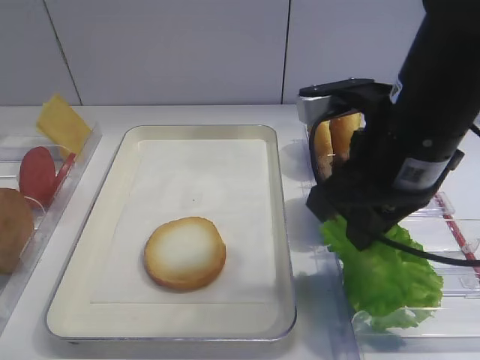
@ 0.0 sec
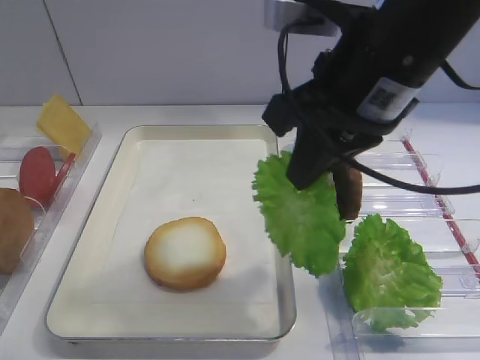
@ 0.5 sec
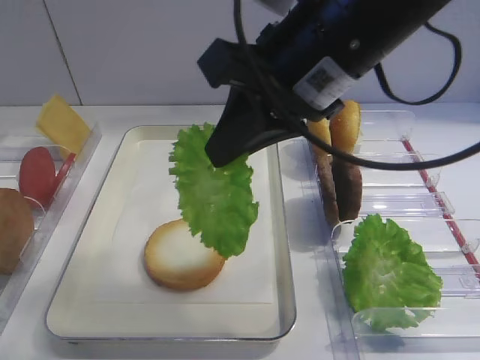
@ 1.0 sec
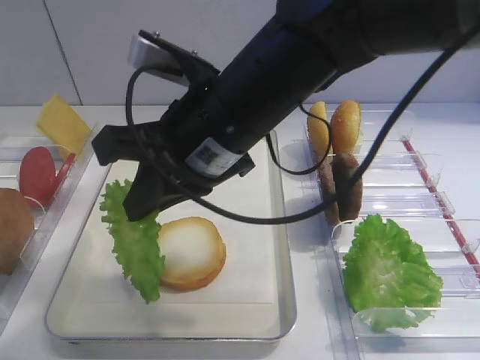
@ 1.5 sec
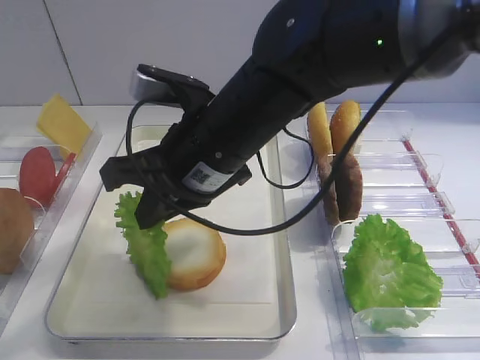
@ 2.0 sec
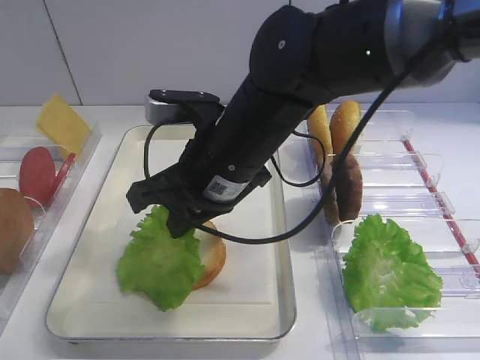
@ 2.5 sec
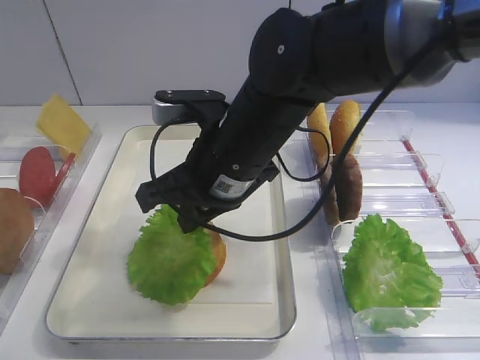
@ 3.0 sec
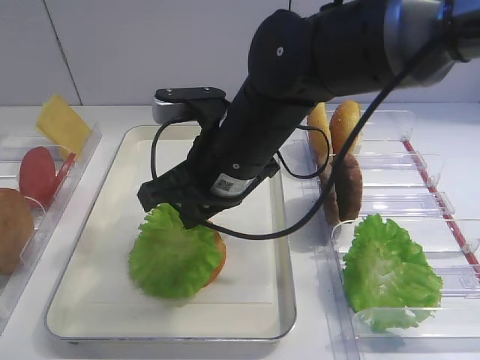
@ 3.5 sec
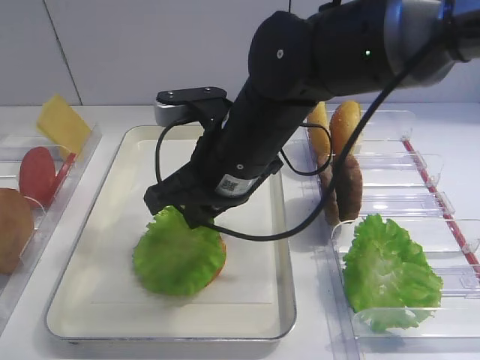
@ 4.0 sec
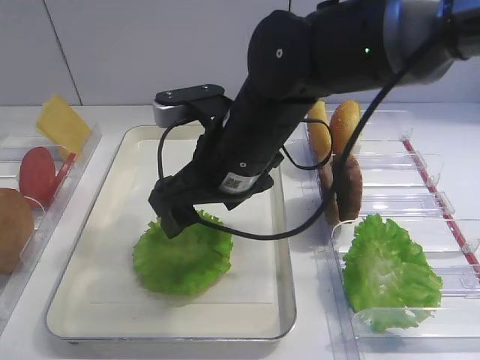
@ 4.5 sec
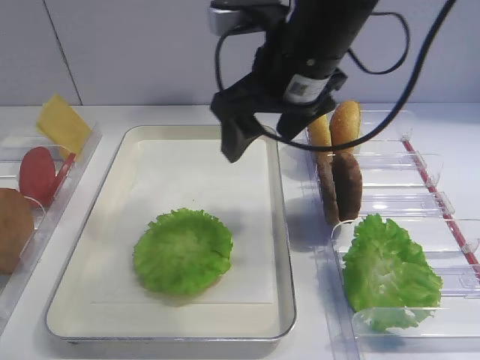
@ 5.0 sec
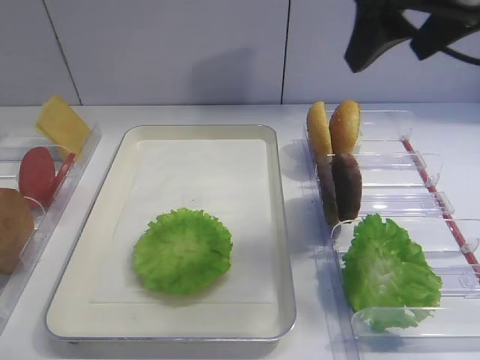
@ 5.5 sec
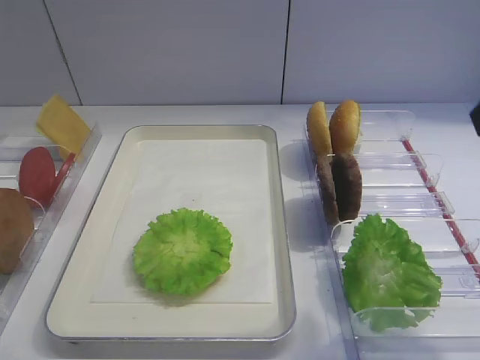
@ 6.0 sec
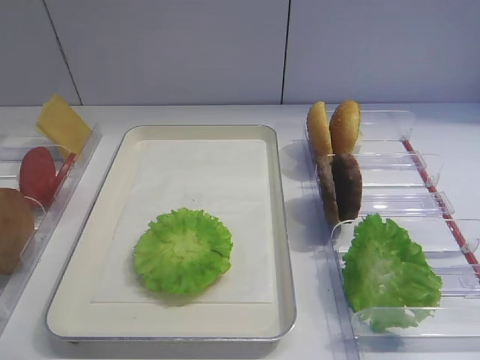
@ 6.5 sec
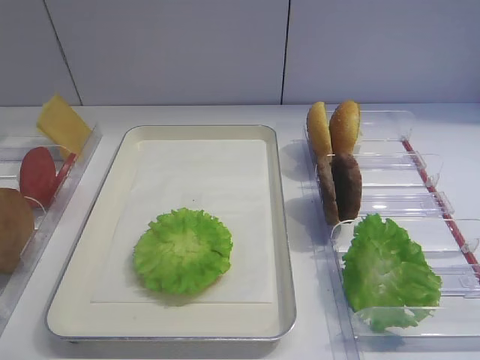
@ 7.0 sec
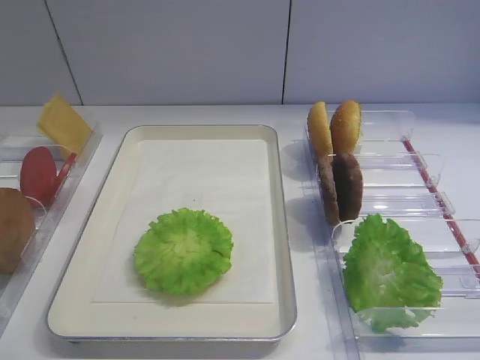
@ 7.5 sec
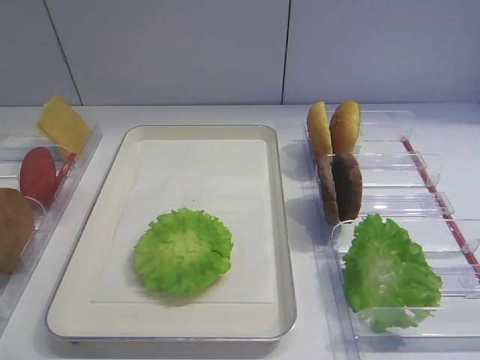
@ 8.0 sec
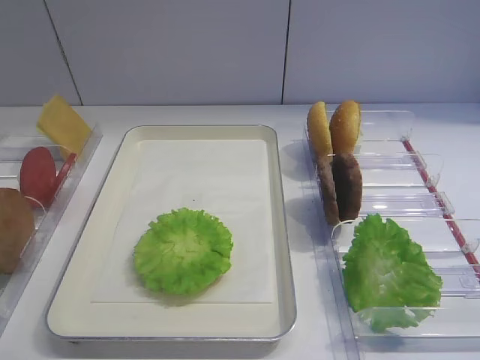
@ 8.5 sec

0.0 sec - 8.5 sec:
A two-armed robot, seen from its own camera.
Step, 0.5 sec - 4.5 sec: Place the lettuce leaf on the bread slice with the right gripper.
0.0 sec - 2.0 sec: The right gripper moves to the left, some 15 cm.
2.0 sec - 4.0 sec: The grippers stay close to where they were, moving slightly.
4.0 sec - 6.5 sec: The right gripper is displaced to the right and backward by about 35 cm, and opens up.

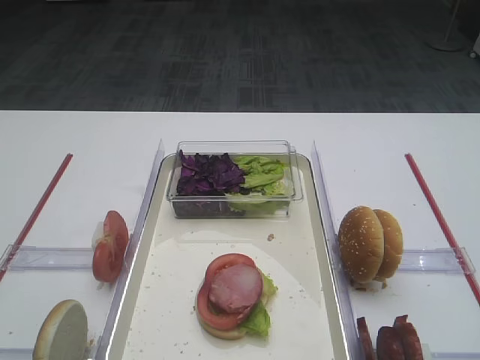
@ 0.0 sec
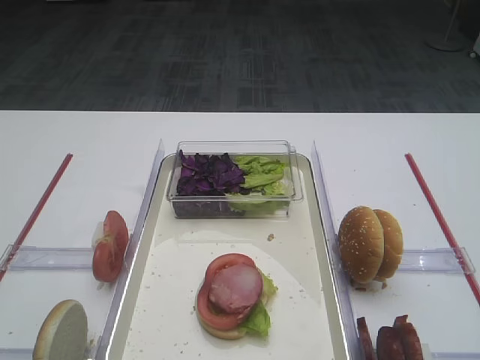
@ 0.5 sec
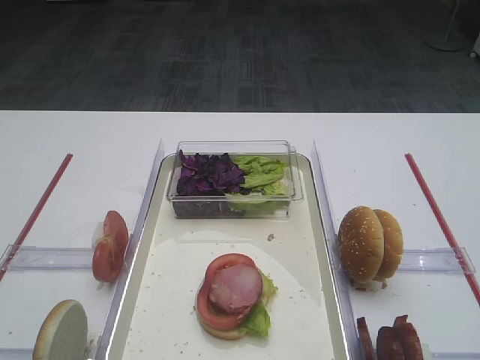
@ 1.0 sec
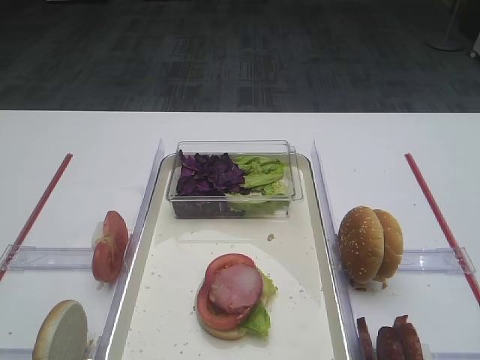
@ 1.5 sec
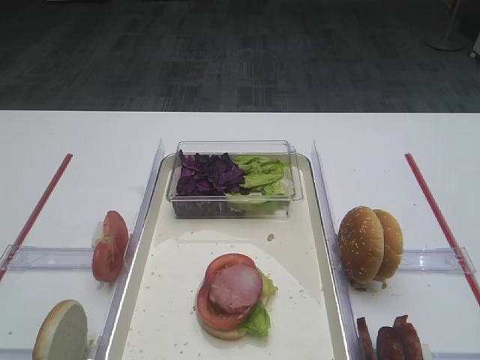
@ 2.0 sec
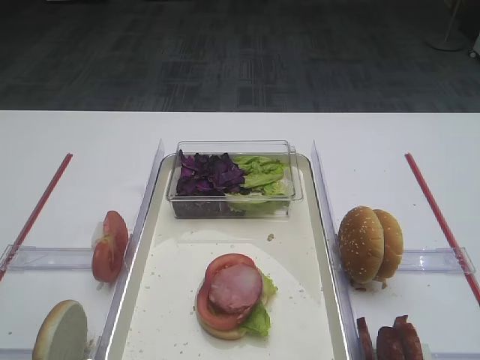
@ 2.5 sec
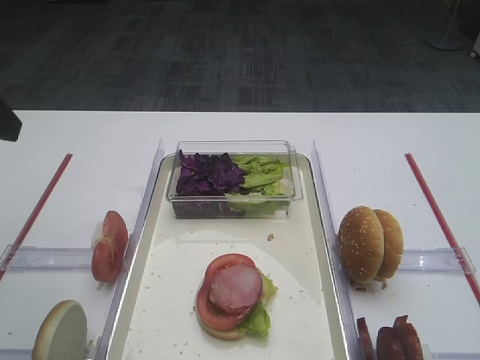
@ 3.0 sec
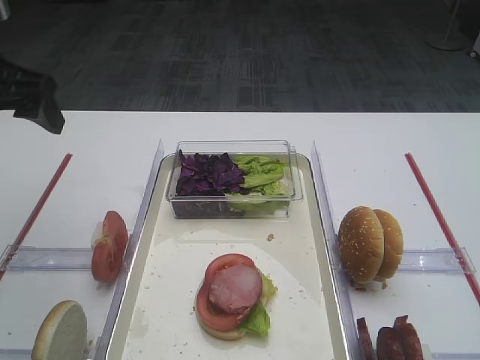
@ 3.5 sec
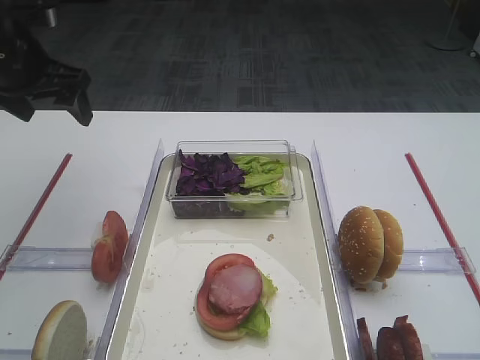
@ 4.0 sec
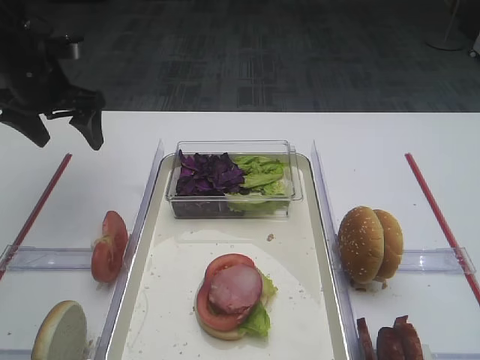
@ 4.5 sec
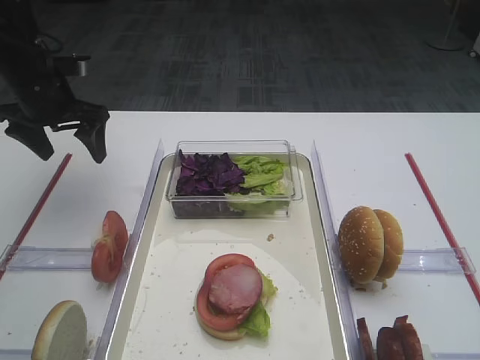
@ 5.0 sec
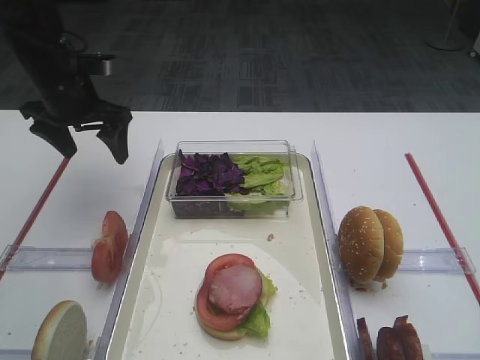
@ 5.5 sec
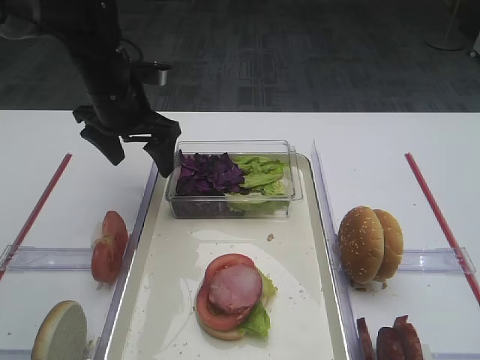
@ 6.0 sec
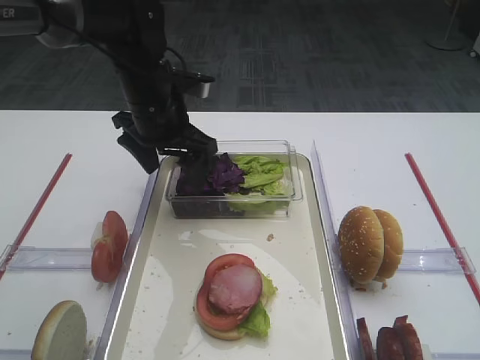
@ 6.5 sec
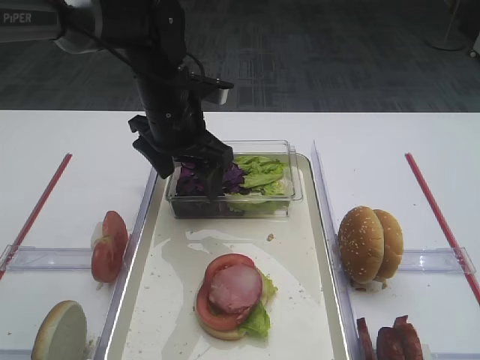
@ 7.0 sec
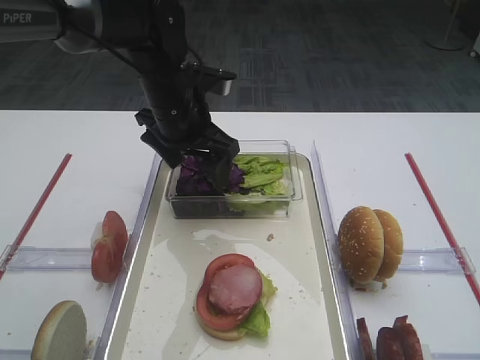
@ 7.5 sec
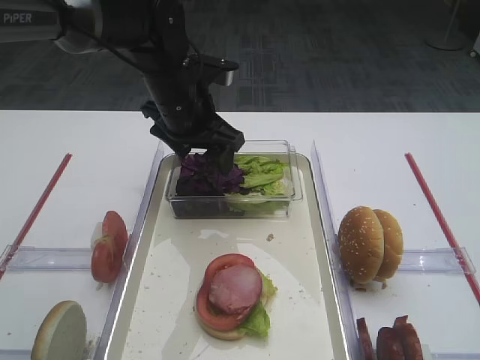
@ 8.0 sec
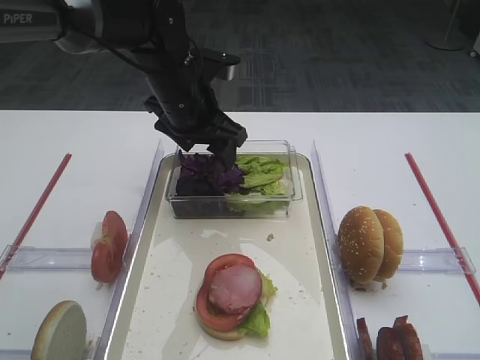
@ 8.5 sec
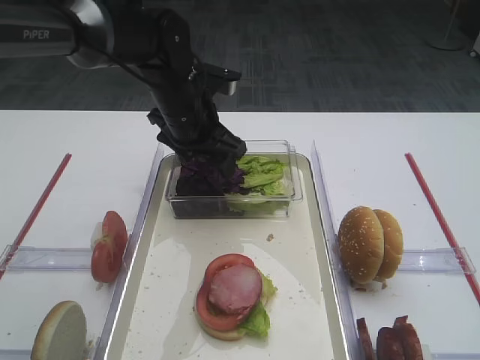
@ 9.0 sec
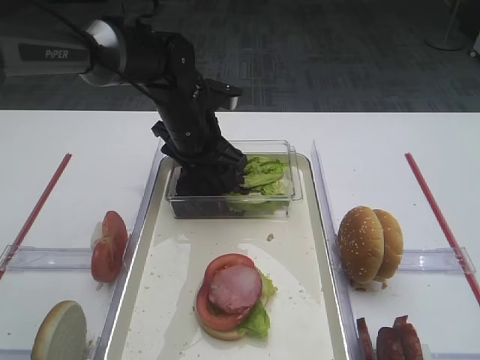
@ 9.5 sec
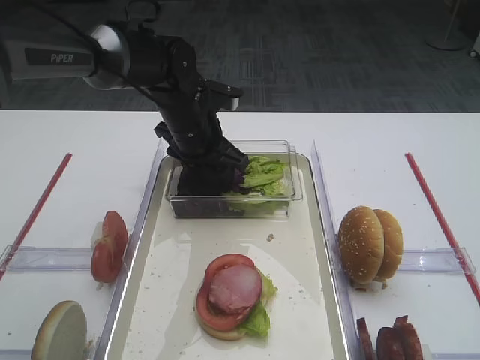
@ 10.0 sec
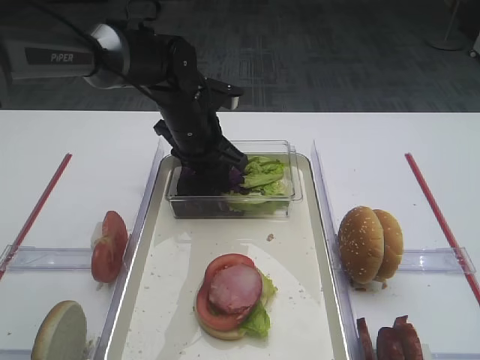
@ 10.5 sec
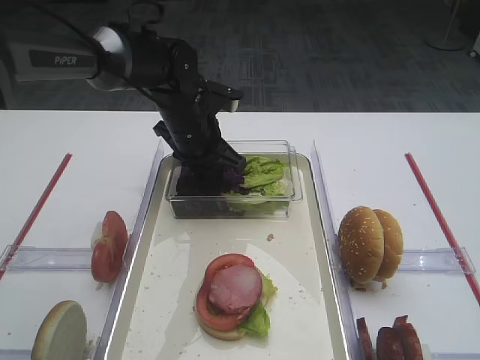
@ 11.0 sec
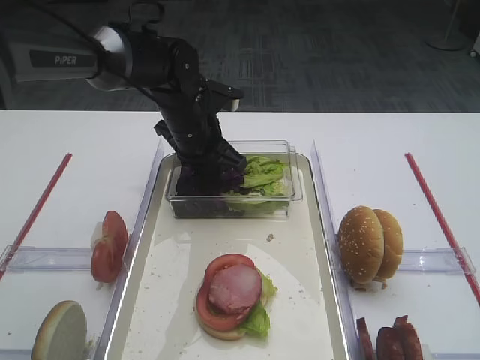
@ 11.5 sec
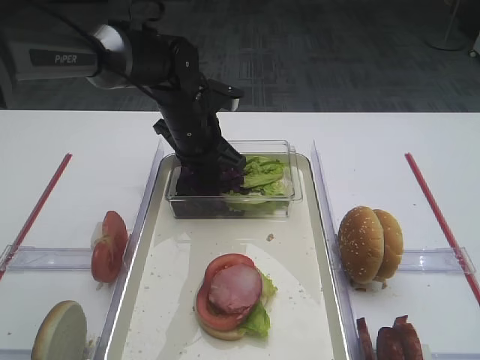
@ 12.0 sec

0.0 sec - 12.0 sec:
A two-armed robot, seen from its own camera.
2.0 sec - 4.0 sec: The left gripper shifts about 40 cm forward.
4.0 sec - 6.0 sec: The left gripper heads to the right and downward, covering some 10 cm.
6.0 sec - 8.0 sec: The left gripper goes approximately 10 cm to the right.
8.0 sec - 10.0 sec: The left gripper moves downward, some 5 cm.

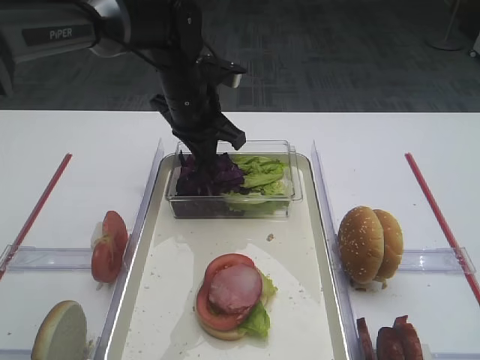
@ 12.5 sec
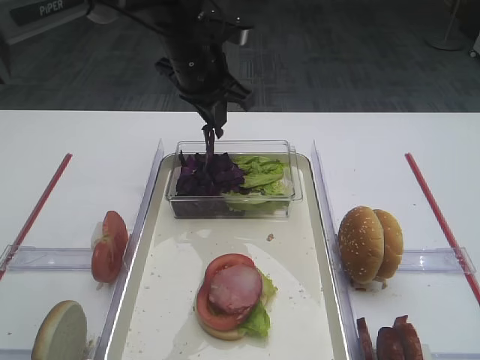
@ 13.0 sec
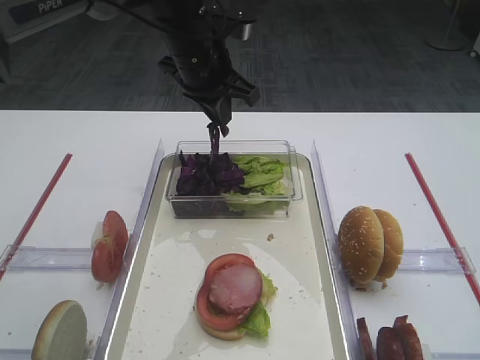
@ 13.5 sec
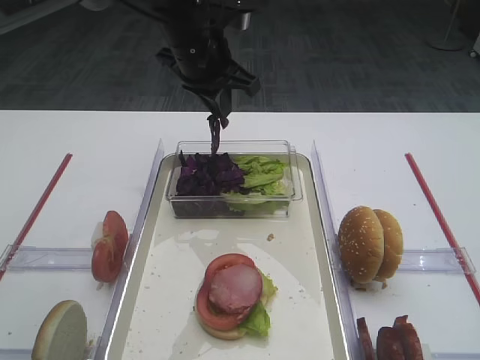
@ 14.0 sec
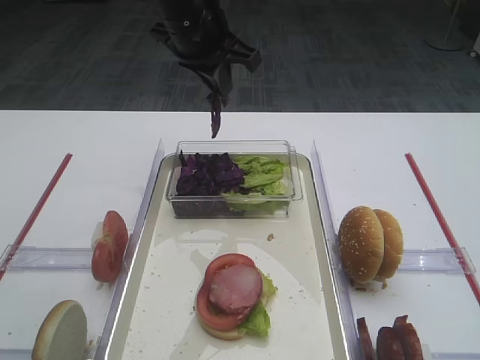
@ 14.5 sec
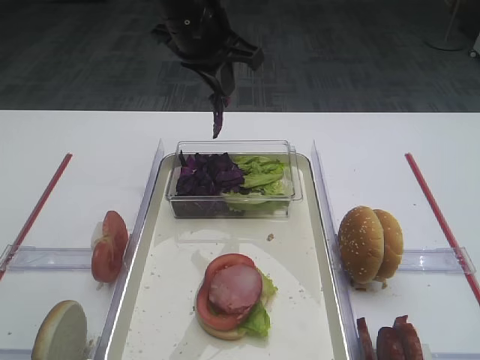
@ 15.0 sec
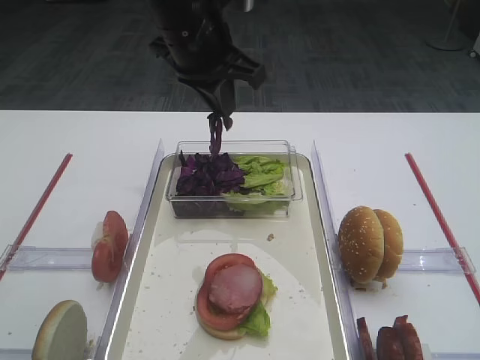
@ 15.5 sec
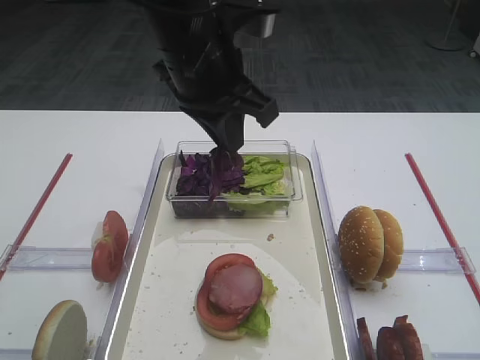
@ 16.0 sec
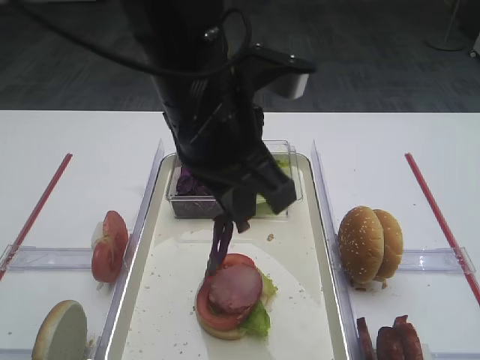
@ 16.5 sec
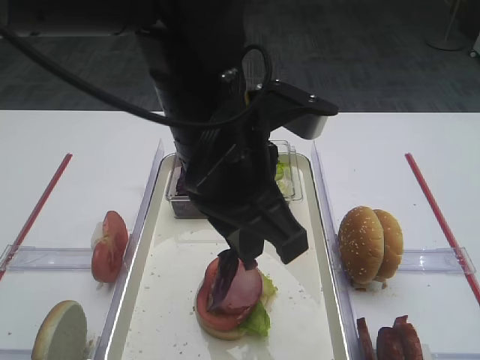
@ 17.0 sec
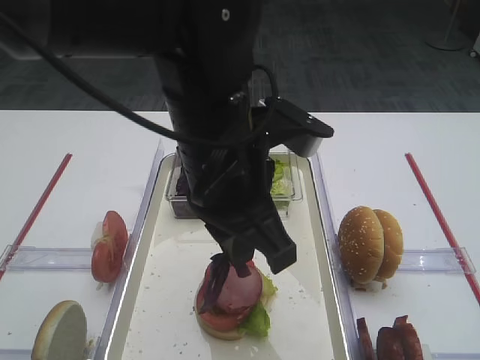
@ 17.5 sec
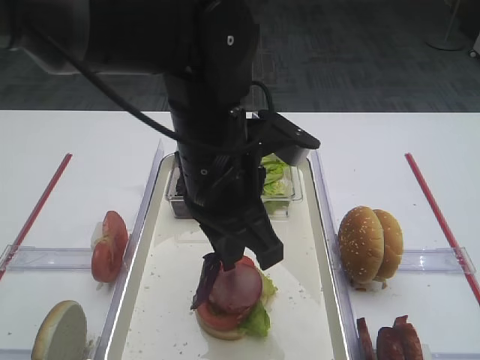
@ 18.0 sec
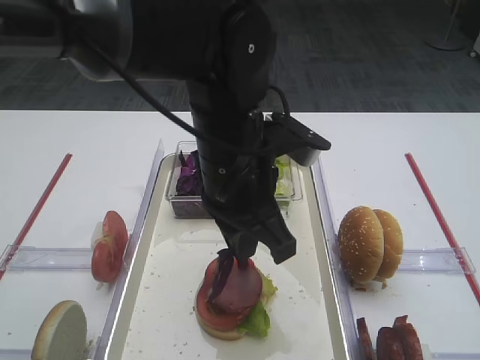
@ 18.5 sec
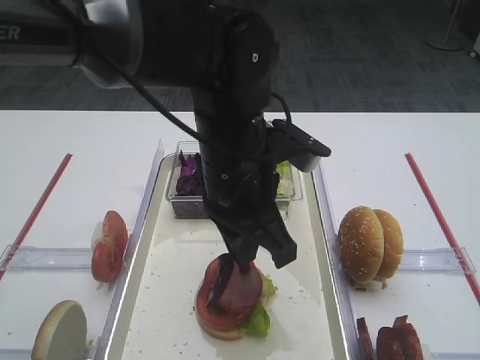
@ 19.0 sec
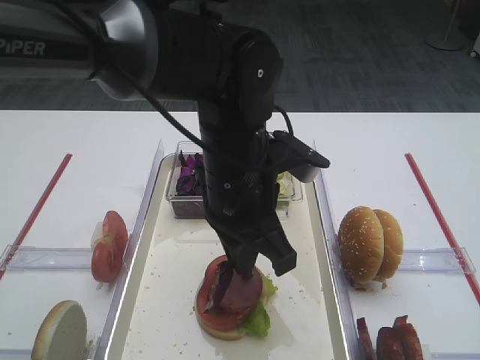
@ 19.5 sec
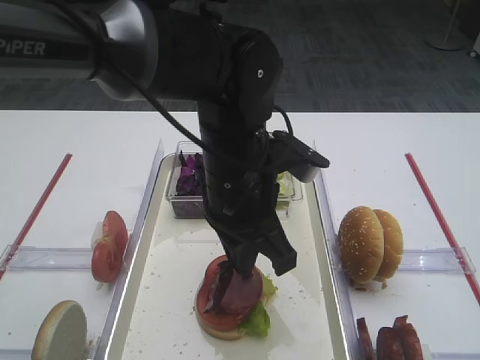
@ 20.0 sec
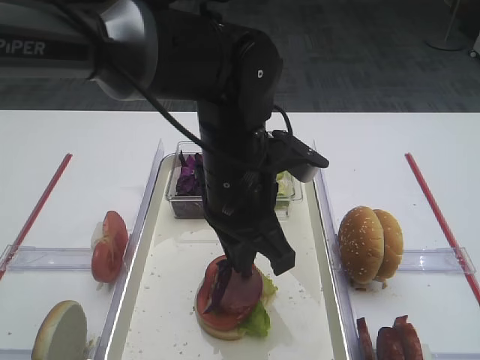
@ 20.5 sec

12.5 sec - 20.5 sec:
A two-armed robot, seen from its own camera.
12.5 sec - 14.5 sec: The left gripper shifts some 10 cm upward.
14.5 sec - 16.5 sec: The left gripper goes about 15 cm backward.
16.5 sec - 18.5 sec: The left gripper goes some 5 cm downward.
18.5 sec - 20.5 sec: The grippers make only small movements.
